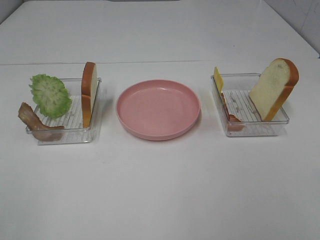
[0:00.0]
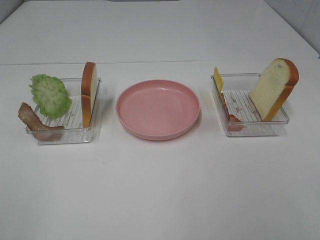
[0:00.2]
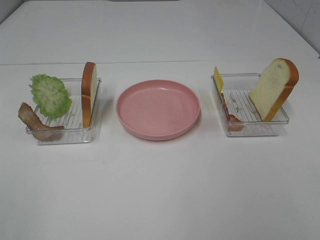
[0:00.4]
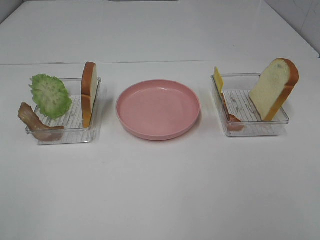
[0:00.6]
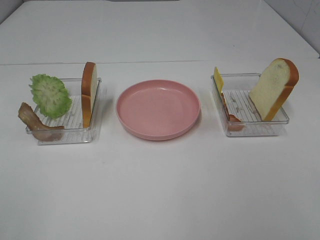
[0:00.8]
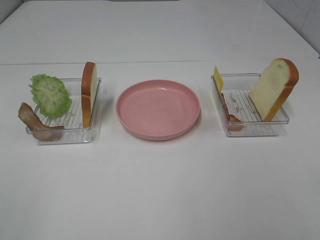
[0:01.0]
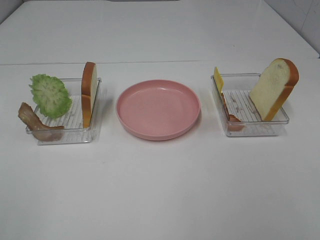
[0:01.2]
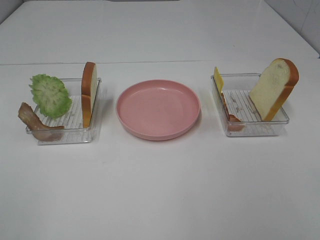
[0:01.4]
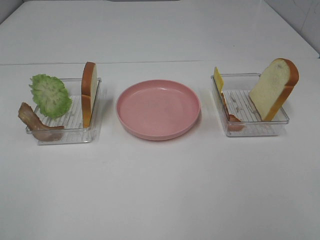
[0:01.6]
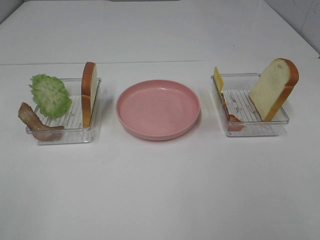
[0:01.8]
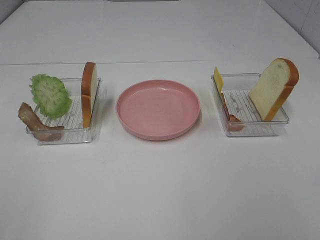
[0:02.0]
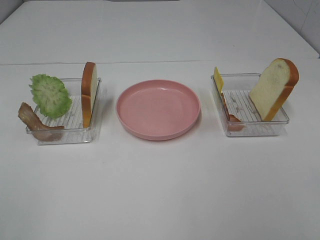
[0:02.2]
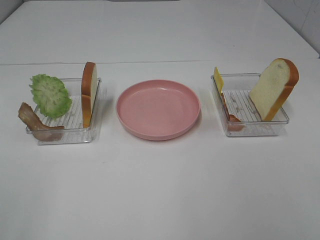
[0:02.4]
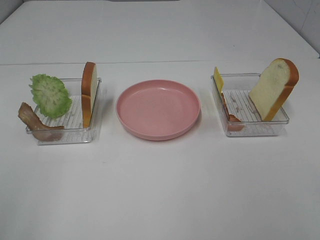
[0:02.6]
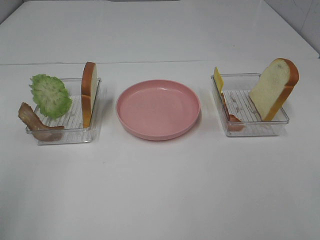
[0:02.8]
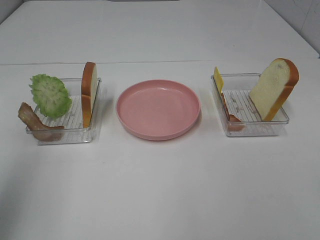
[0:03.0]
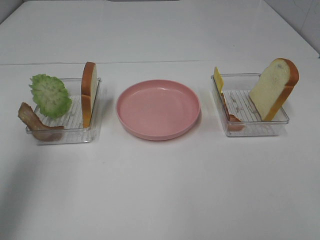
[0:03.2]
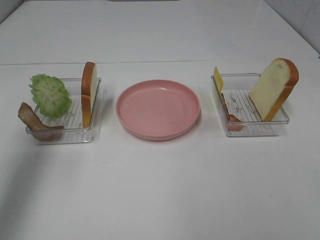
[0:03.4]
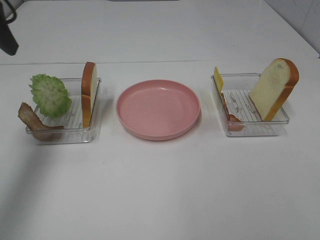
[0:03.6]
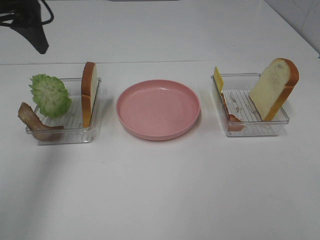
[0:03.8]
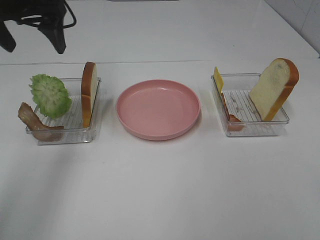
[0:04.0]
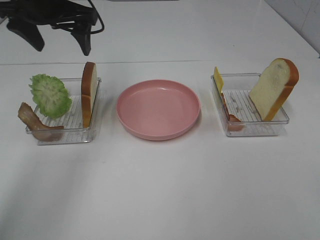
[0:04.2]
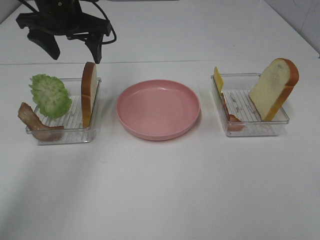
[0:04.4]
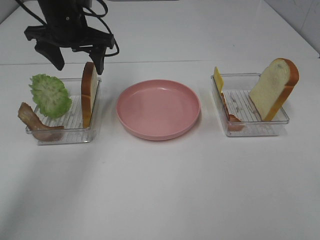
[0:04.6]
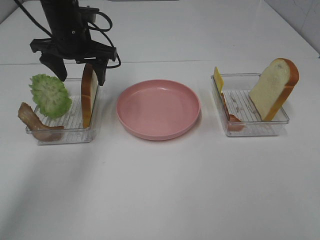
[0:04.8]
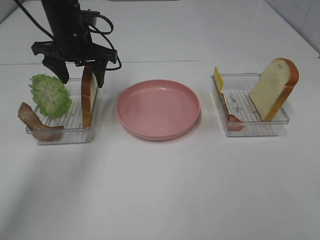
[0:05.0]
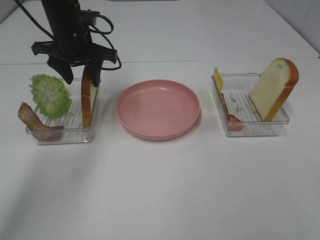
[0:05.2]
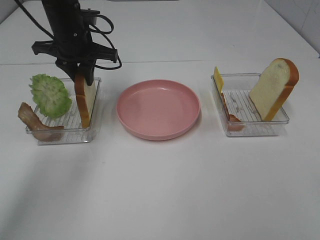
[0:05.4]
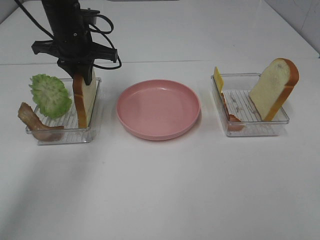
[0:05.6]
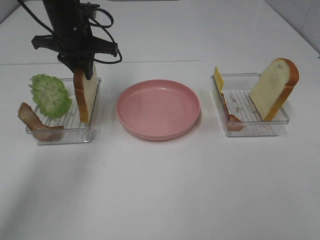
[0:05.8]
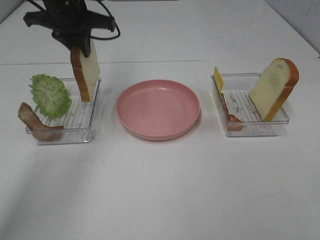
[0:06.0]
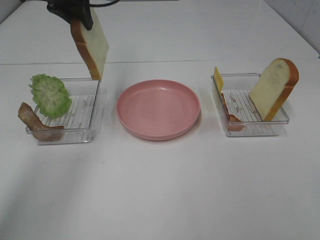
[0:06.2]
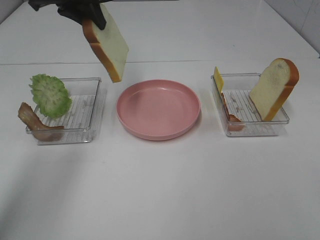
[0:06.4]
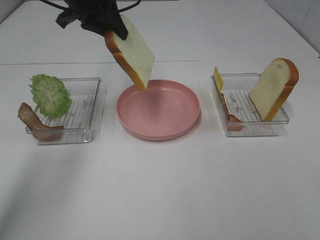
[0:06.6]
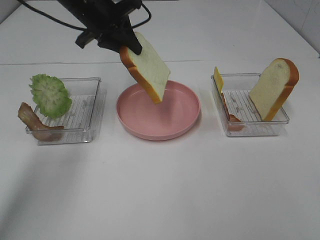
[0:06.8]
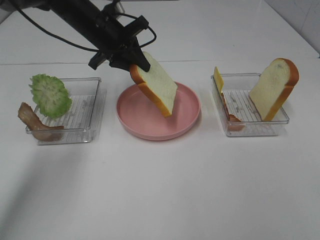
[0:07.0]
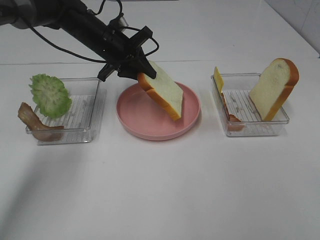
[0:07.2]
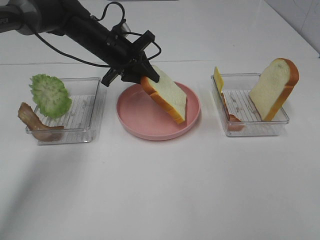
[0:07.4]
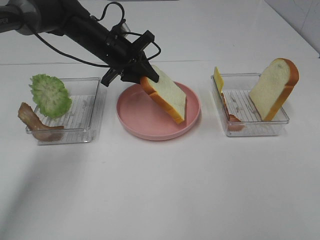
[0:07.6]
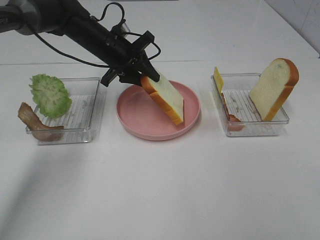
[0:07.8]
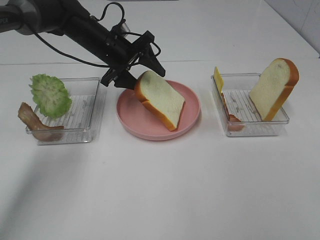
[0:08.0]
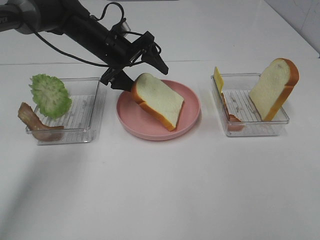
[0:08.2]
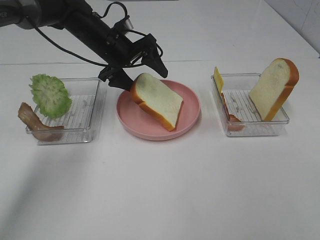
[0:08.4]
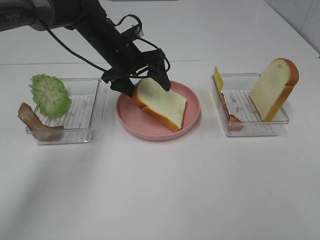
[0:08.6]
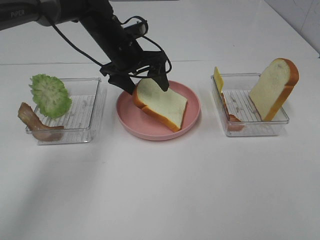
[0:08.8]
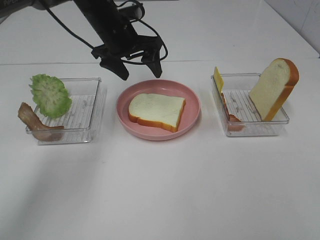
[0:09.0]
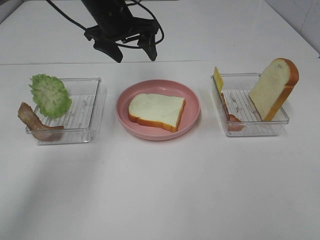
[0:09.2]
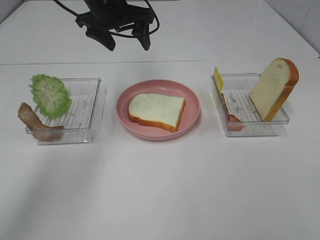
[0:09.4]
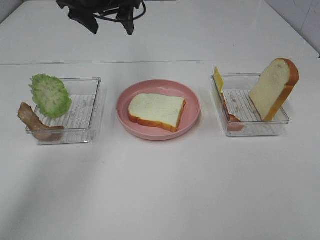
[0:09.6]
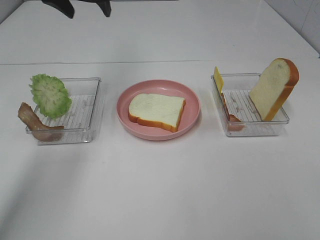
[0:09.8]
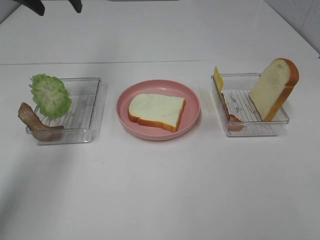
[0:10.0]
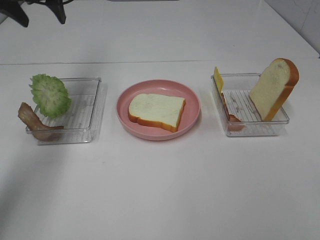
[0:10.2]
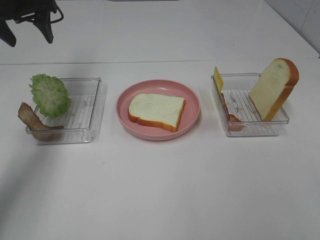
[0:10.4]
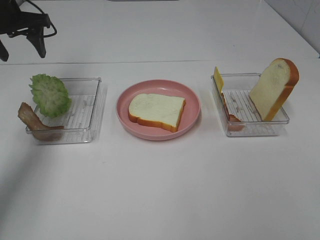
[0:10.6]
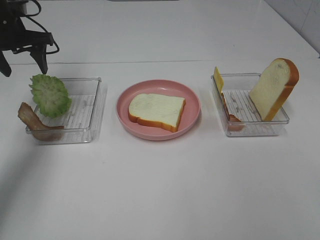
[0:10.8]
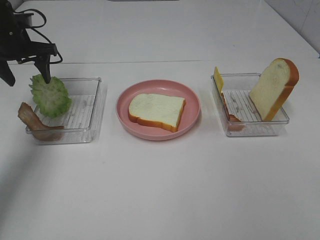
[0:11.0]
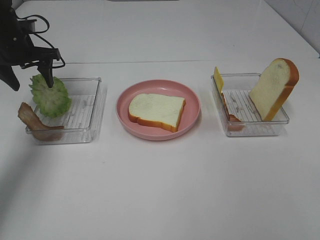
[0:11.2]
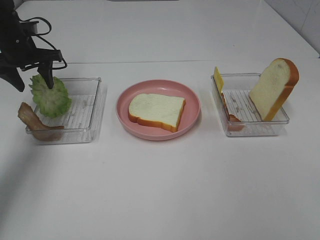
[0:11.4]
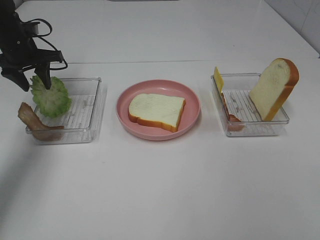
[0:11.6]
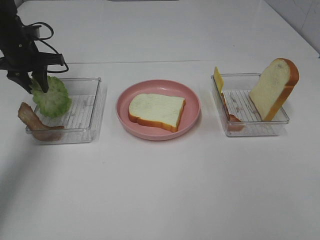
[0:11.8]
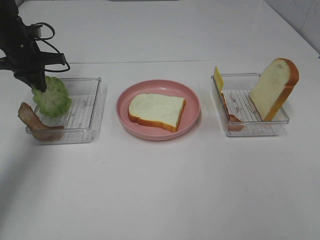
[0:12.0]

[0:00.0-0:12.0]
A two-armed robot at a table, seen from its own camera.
Task of the whole recording: Make sandwiches.
Step, 0.0 to 5.6 s: Left hand:grab the bread slice.
Step, 5.8 to 8.8 s: Left hand:place the bread slice on the plate.
0.0 to 1.6 s: Both grippers stay put.
1.6 to 3.0 s: The left gripper moves forward and upward, roughly 20 cm.
3.0 to 4.4 s: The left gripper travels forward and to the right by about 30 cm.
4.4 to 6.0 s: The left gripper closes.
6.0 to 7.6 s: The left gripper heads downward, covering some 10 cm.
7.6 to 9.0 s: The left gripper changes place by about 5 cm, and opens up.
9.0 to 10.4 s: The left gripper heads to the left, covering some 20 cm.
10.4 to 12.0 s: The left gripper heads downward, covering some 10 cm, and closes up.

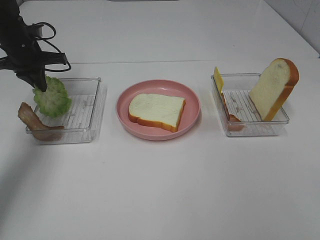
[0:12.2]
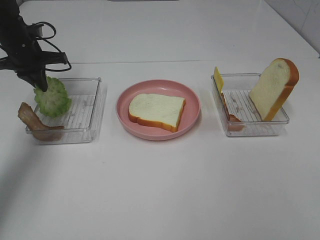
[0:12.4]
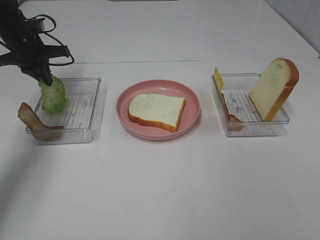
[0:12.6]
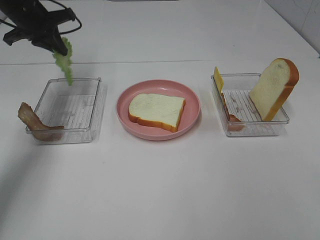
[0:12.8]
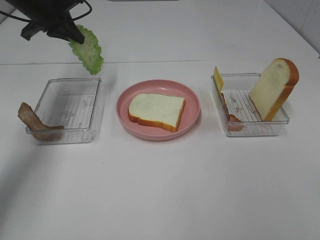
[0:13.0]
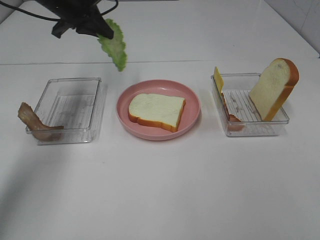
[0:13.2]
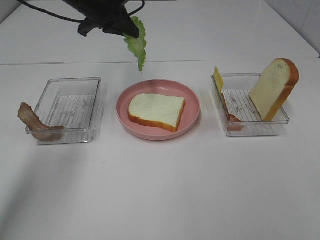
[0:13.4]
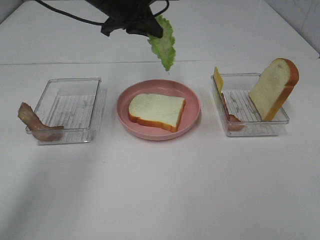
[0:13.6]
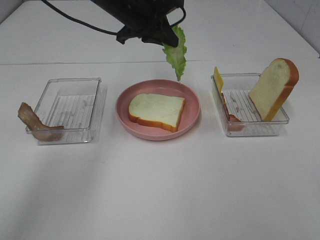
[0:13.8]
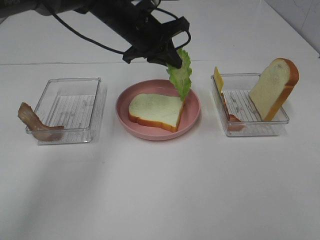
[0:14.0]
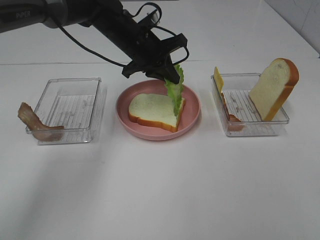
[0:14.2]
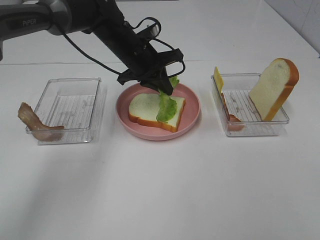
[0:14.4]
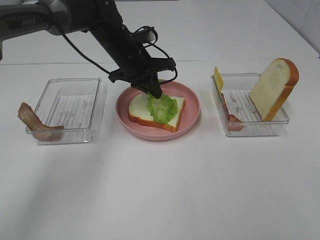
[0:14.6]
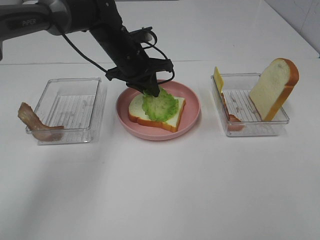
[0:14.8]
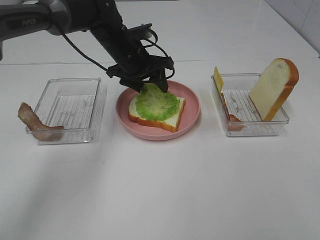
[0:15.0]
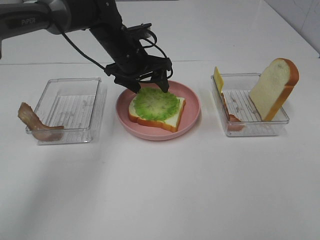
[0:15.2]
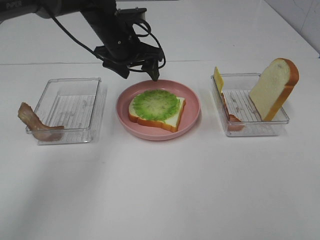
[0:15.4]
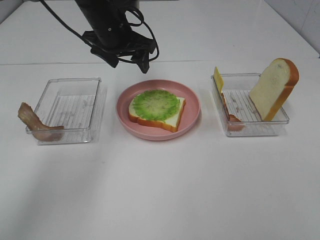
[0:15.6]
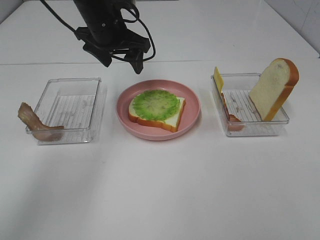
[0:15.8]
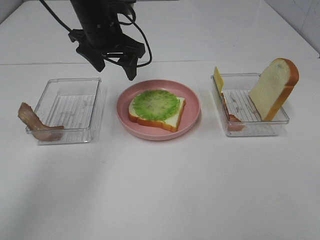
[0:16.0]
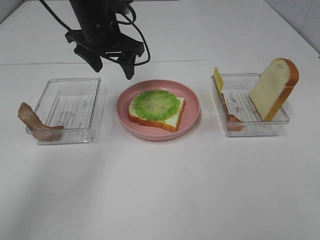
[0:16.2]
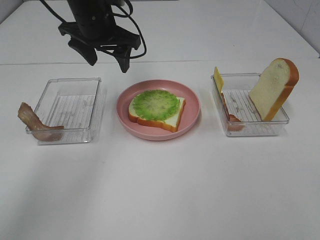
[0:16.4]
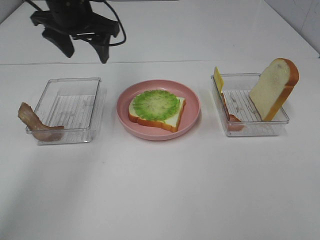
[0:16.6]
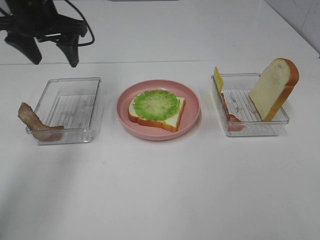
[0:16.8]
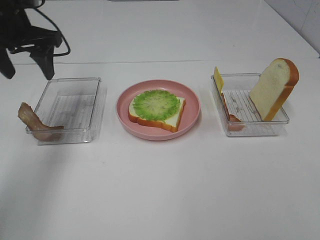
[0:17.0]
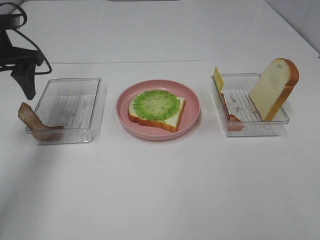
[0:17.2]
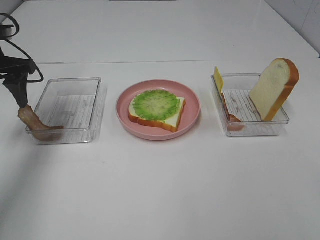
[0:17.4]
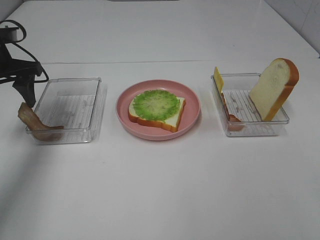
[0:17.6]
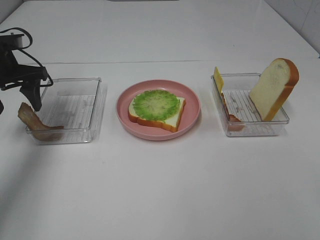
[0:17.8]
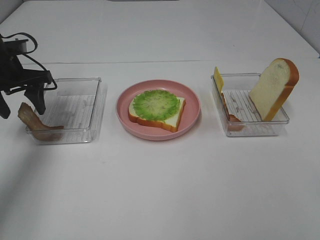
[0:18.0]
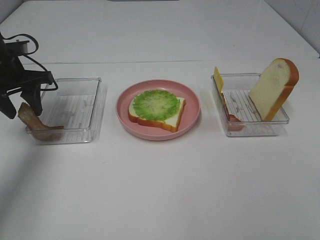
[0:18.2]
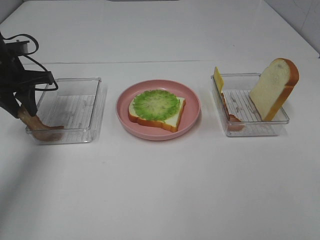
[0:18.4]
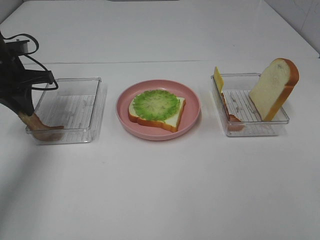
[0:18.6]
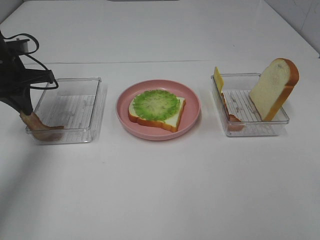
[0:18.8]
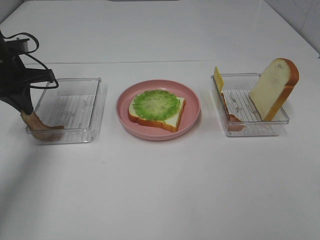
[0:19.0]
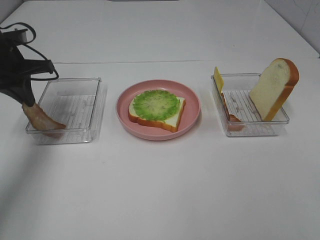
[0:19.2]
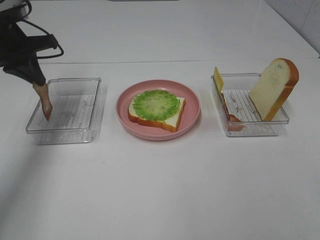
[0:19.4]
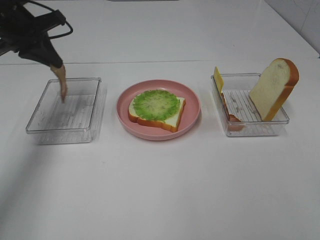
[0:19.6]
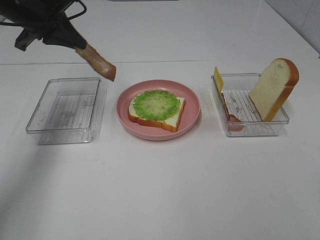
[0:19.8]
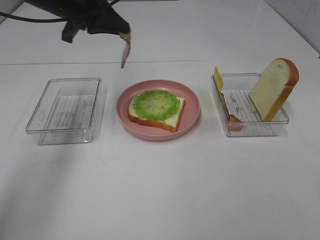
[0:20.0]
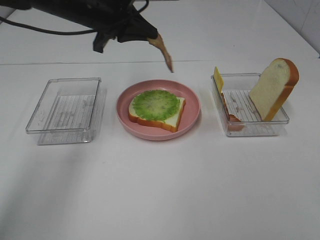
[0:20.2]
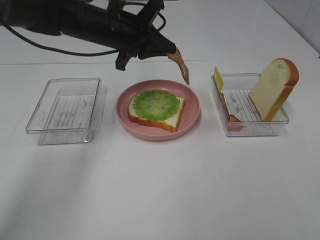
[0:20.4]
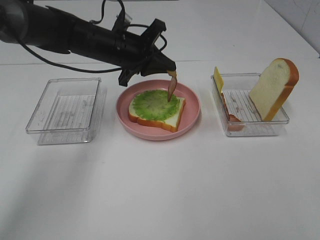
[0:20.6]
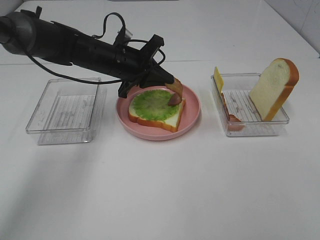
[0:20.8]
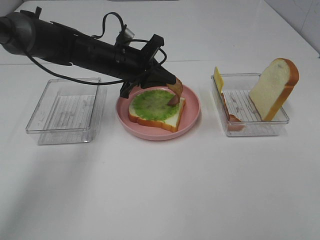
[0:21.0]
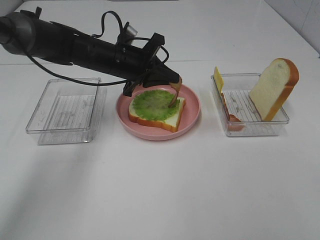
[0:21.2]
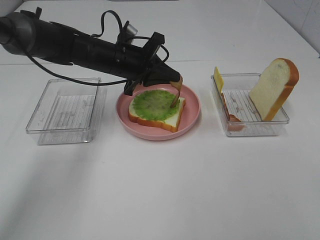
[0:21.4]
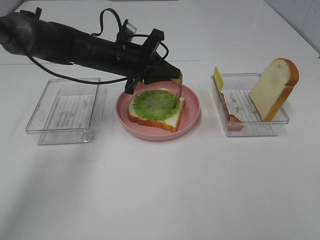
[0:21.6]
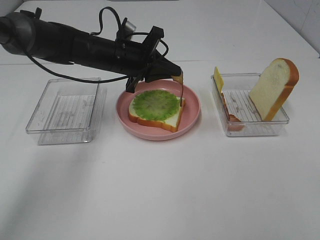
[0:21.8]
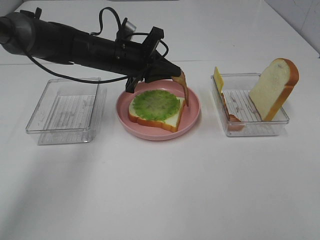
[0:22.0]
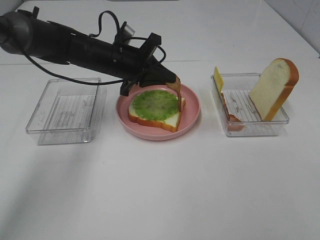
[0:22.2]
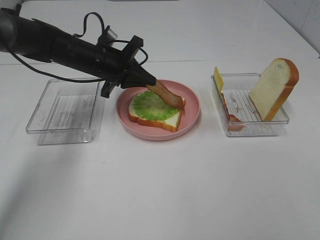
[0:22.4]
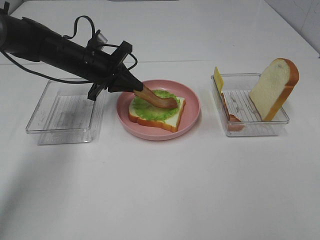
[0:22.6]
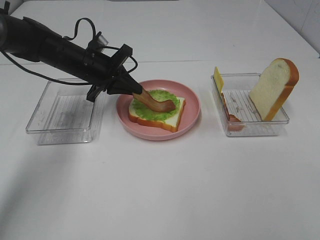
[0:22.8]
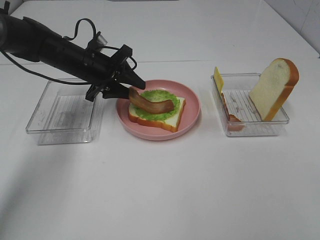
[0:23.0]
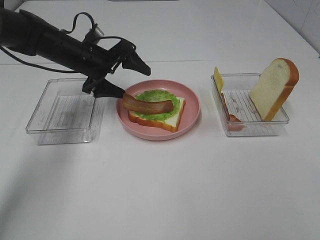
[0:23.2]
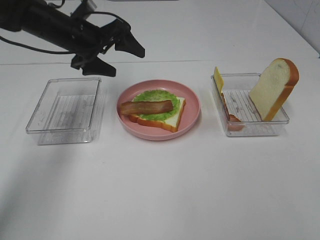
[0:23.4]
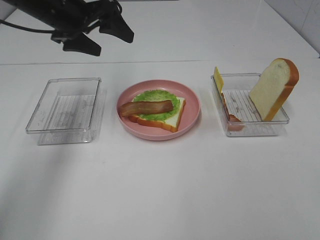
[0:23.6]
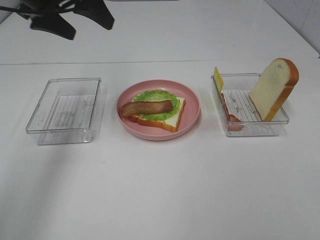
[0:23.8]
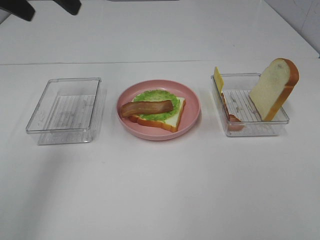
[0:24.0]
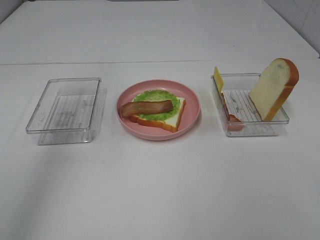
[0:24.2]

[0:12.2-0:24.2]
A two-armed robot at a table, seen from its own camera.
Task of the whole recording: Make sandwiches.
Step, 12.4 to 15.2 s: Left hand:place the lettuce slice on the bread slice.
Step, 15.4 to 19.0 s: Left hand:grab the bacon.
Step, 19.2 to 23.4 s: Left hand:place bacon on lettuce slice.
12.2 to 13.8 s: The left gripper shifts some 25 cm to the right.
13.8 to 15.2 s: The left gripper goes about 10 cm downward, and opens.
15.2 to 16.6 s: The left gripper heads upward and to the left, covering about 15 cm.
16.6 to 18.2 s: The left gripper goes some 15 cm to the left and downward.
18.2 to 19.8 s: The left gripper heads upward and to the right, covering some 10 cm, and closes.
19.8 to 21.2 s: The left gripper heads to the right and downward, covering approximately 20 cm.
21.2 to 22.6 s: The left gripper shifts approximately 5 cm to the left.
22.6 to 24.2 s: The left gripper heads upward and backward, covering approximately 30 cm, and opens its fingers.
